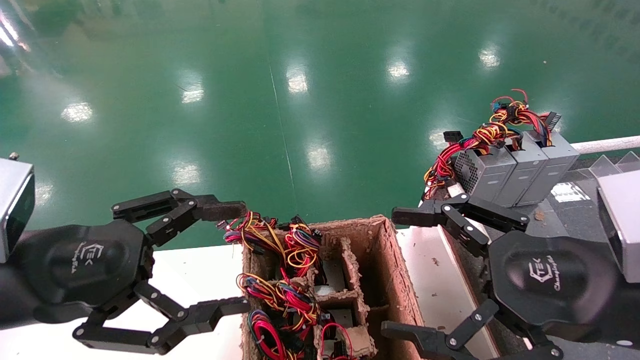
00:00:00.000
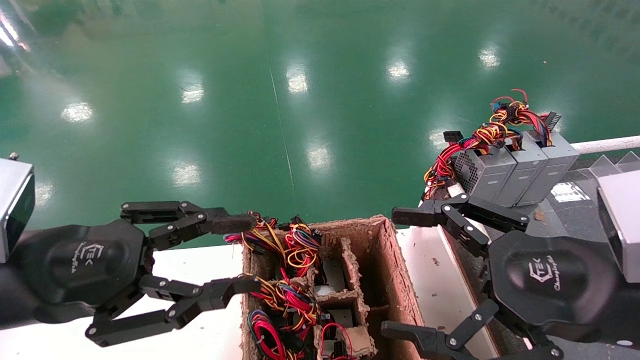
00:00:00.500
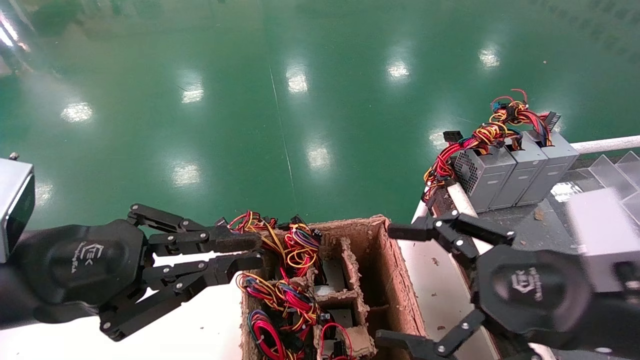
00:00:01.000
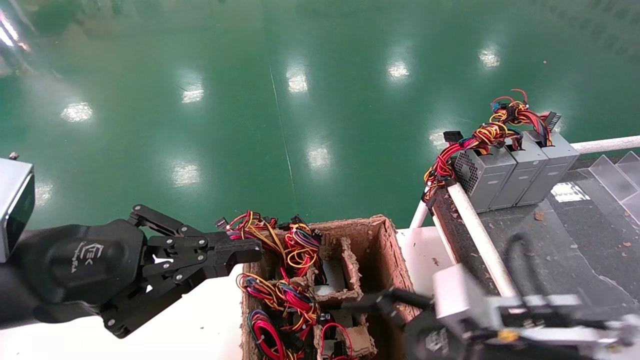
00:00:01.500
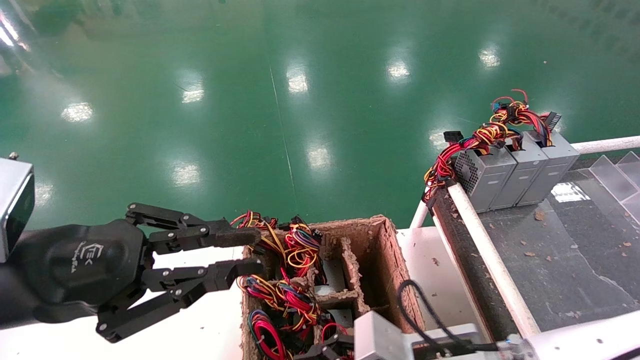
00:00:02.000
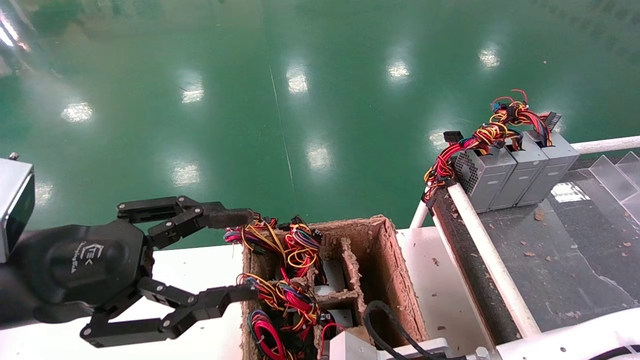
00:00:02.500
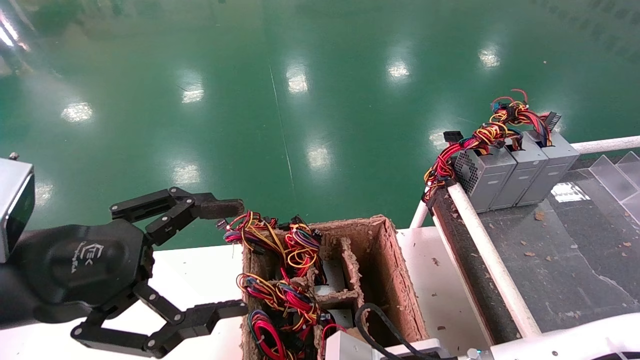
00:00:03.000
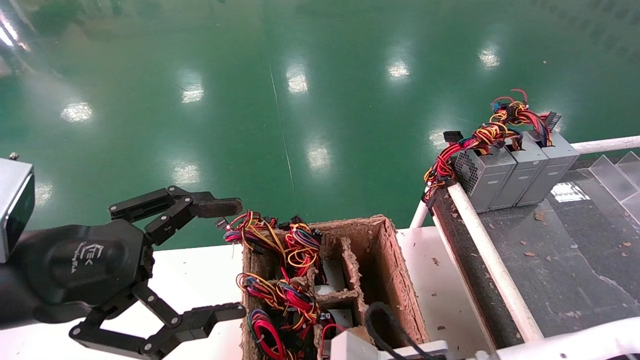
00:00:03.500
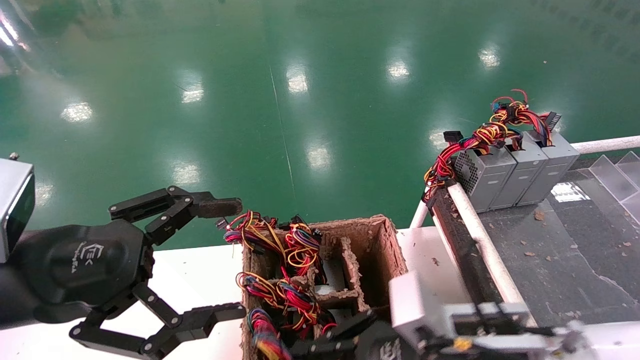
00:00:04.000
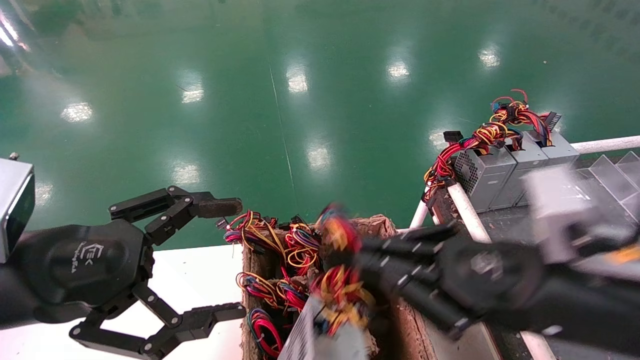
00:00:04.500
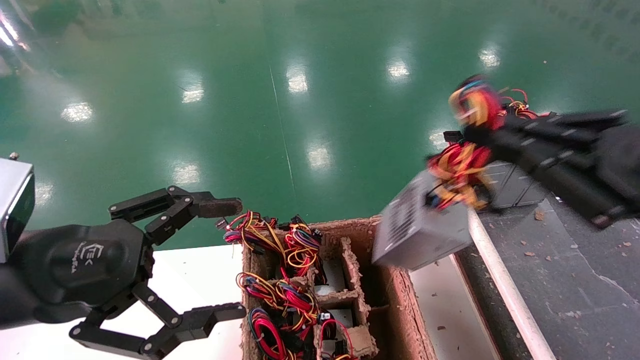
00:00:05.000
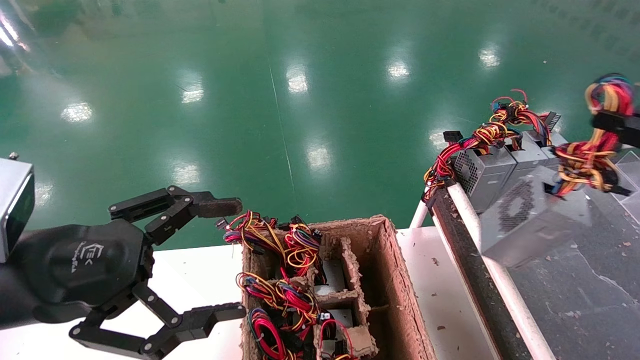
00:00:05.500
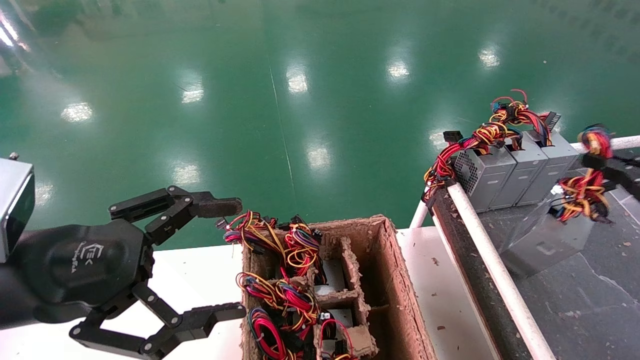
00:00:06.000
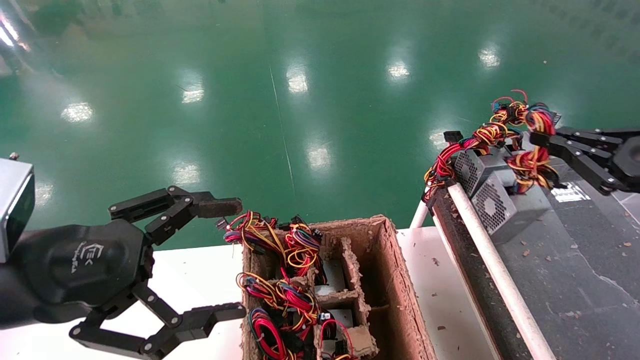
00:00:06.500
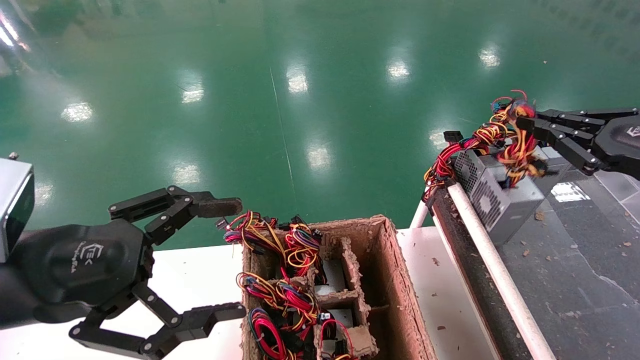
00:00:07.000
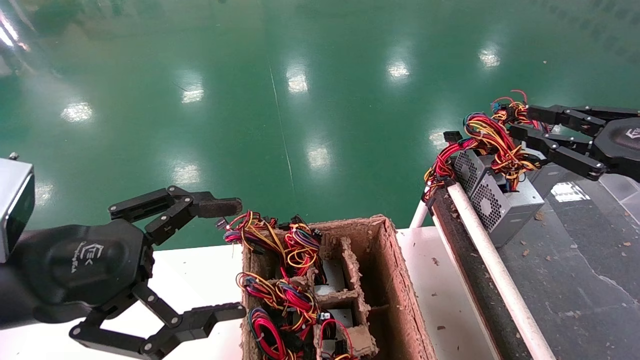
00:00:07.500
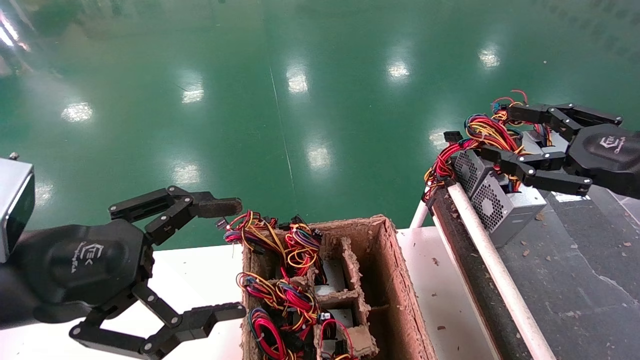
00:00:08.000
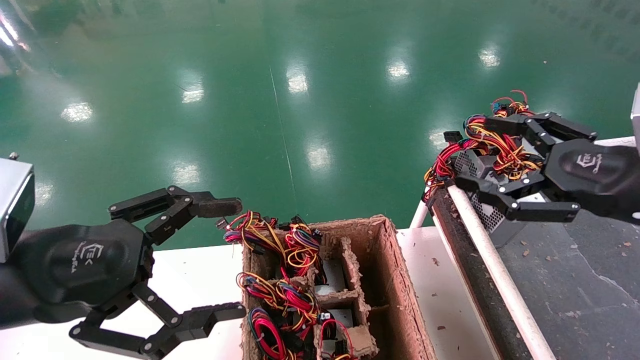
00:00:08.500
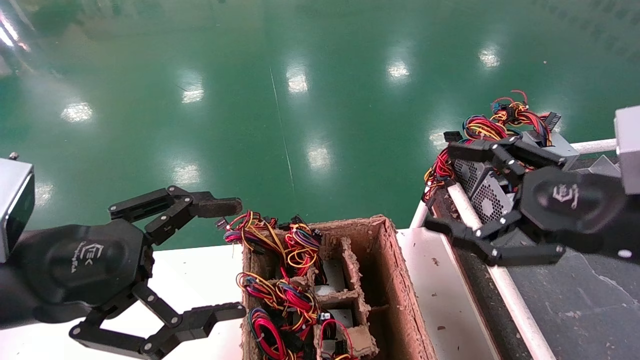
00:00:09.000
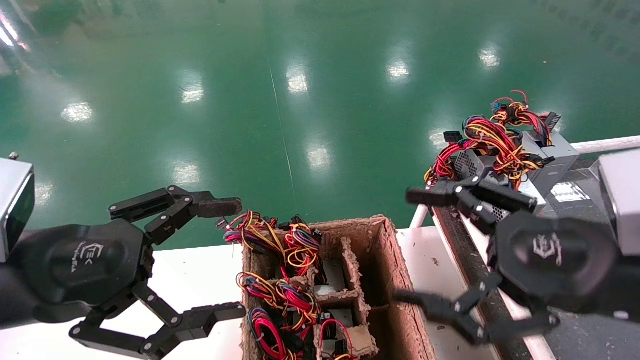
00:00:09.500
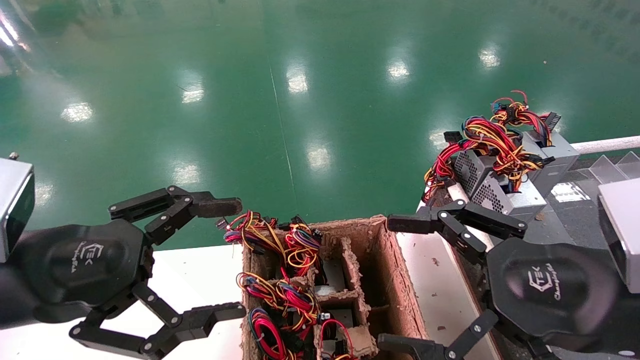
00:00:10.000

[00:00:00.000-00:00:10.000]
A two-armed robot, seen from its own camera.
Step, 00:00:01.500 to 00:00:03.000: Grab and lift the power supply from the large box.
Step, 00:00:03.500 to 00:00:07.000: Place the power supply on the operating table.
00:00:00.000 to 00:00:02.000: The right gripper heads downward, to the left and forward, covering approximately 20 cm, while the left gripper closes up.
00:00:02.000 to 00:00:04.000: The left gripper opens its fingers. Meanwhile the right gripper shifts by roughly 5 cm, and closes its fingers.
00:00:04.000 to 00:00:06.000: The right gripper is displaced to the right by about 30 cm.
00:00:06.000 to 00:00:08.000: The right gripper is displaced to the left and forward by approximately 10 cm, and opens.
00:00:08.000 to 00:00:10.000: The right gripper goes approximately 15 cm to the left and backward, and opens.

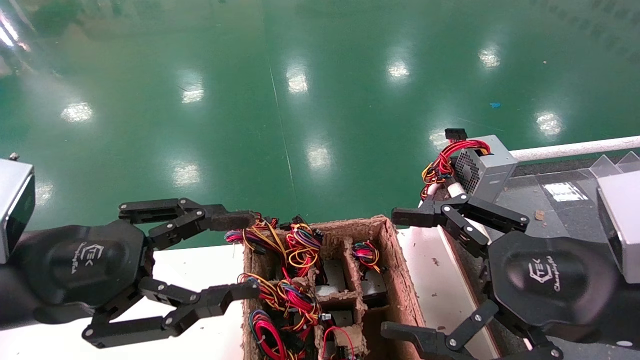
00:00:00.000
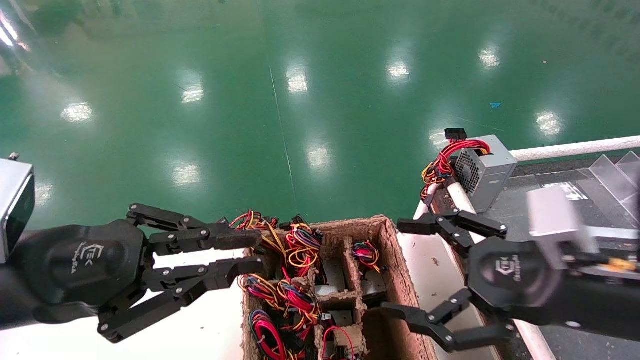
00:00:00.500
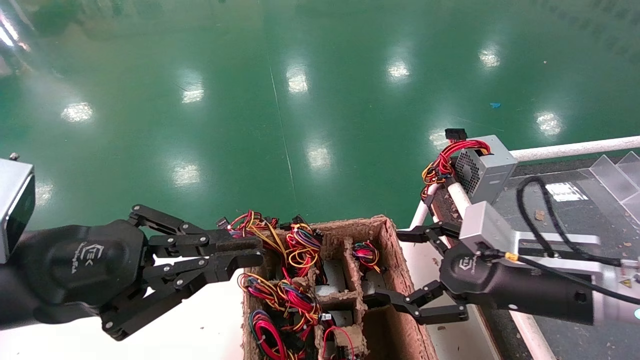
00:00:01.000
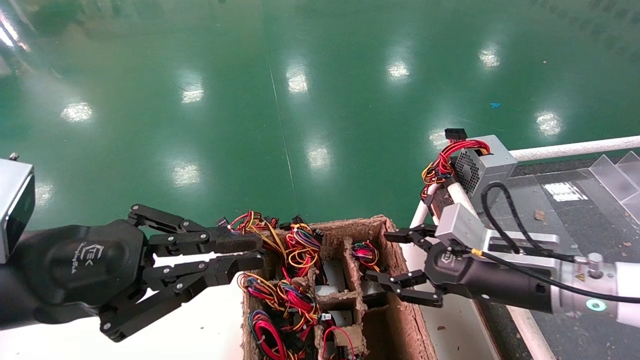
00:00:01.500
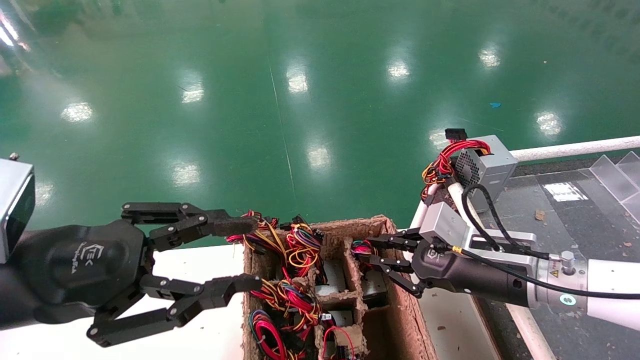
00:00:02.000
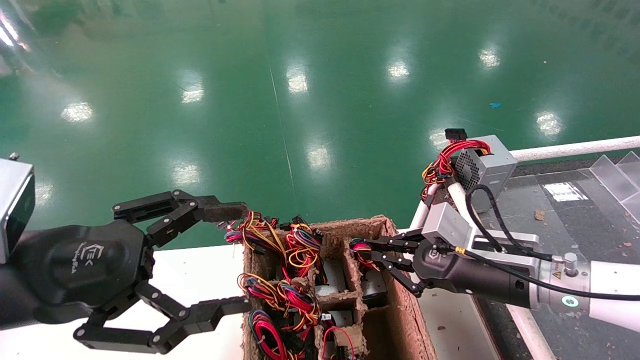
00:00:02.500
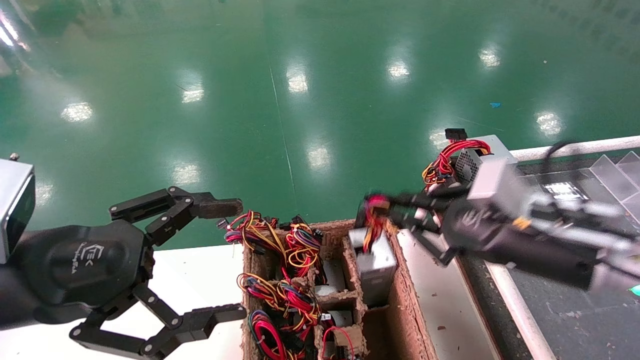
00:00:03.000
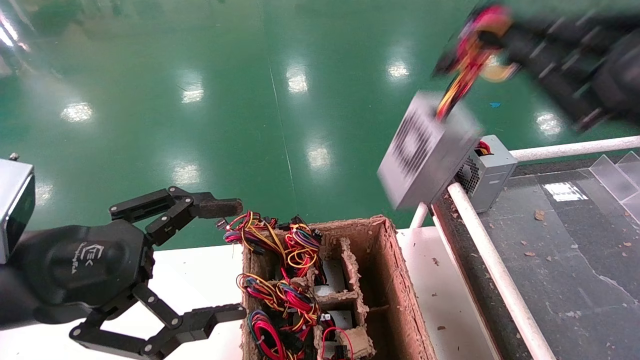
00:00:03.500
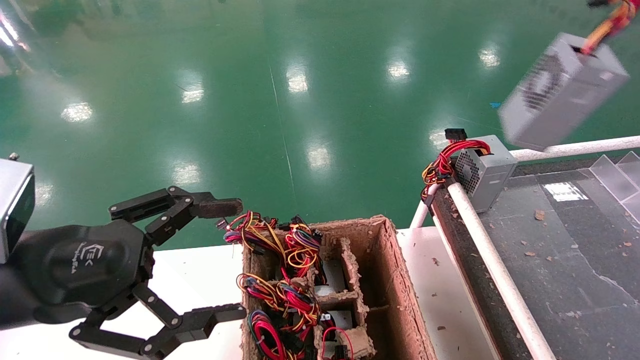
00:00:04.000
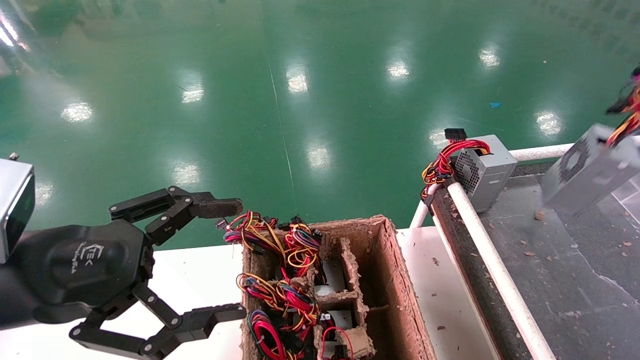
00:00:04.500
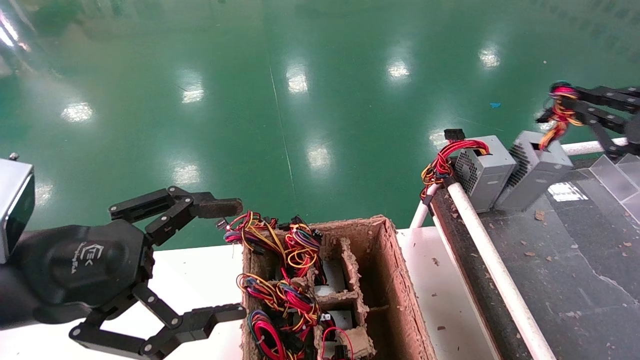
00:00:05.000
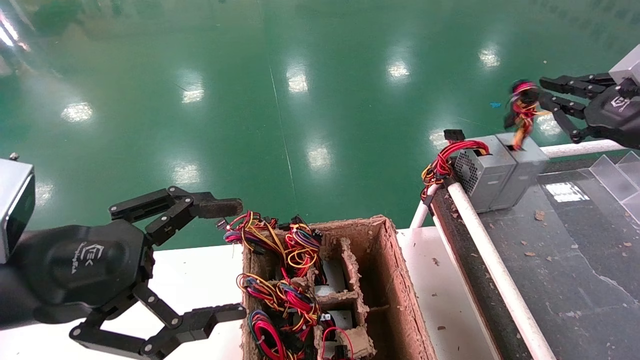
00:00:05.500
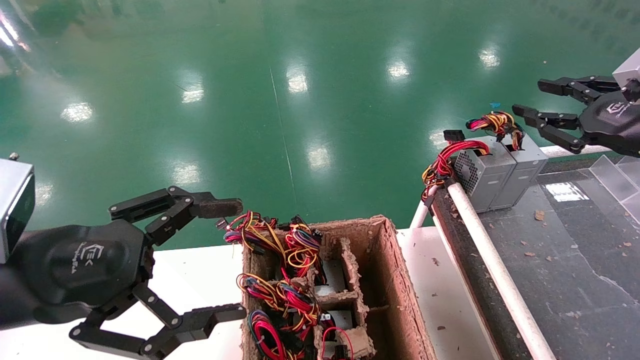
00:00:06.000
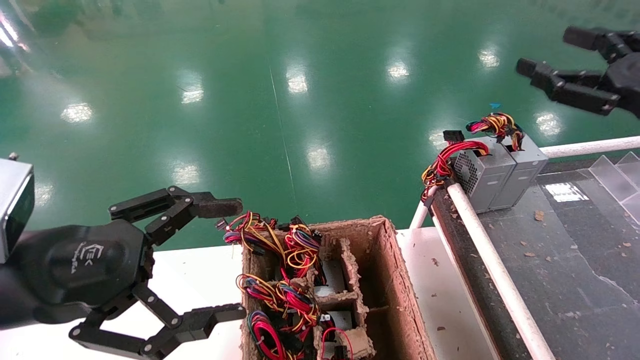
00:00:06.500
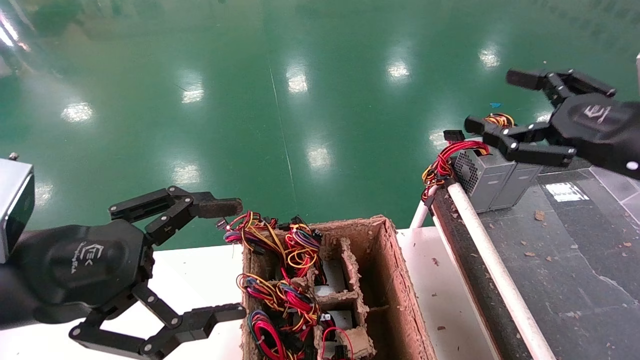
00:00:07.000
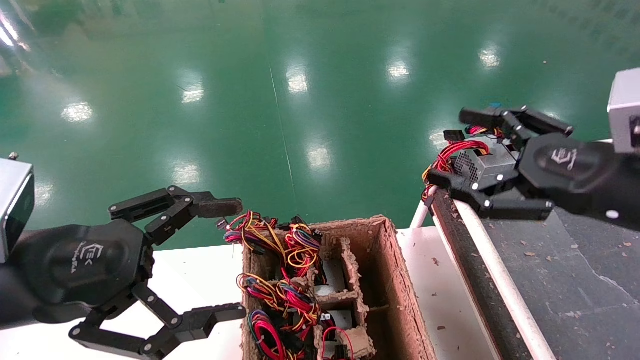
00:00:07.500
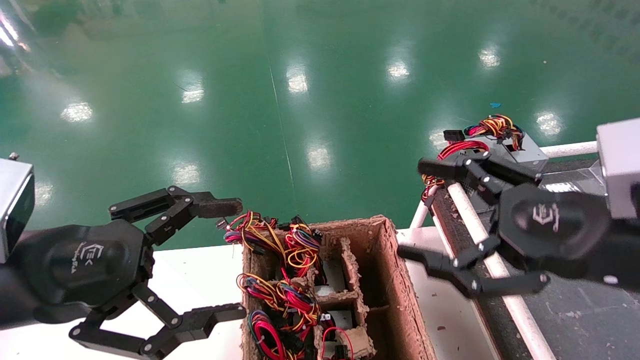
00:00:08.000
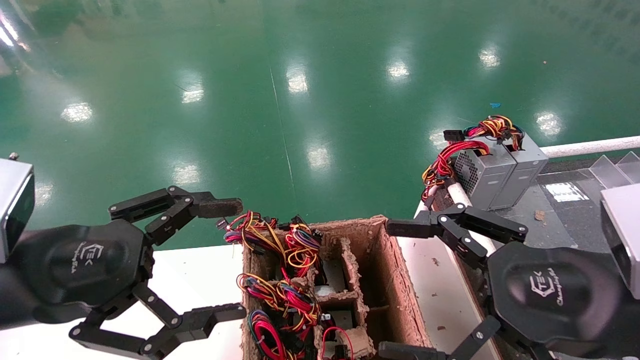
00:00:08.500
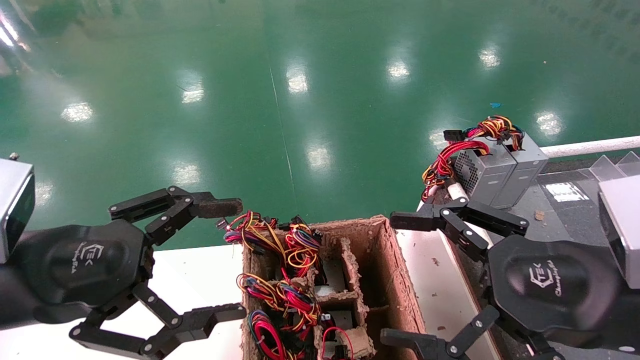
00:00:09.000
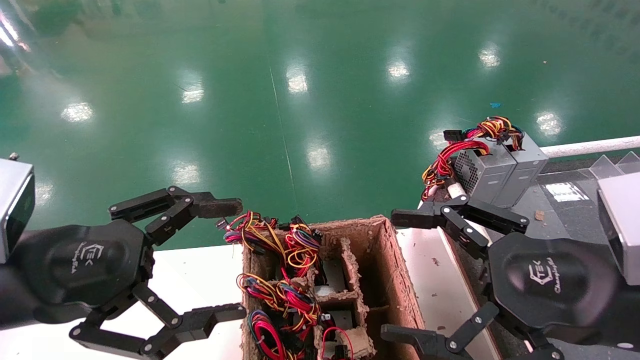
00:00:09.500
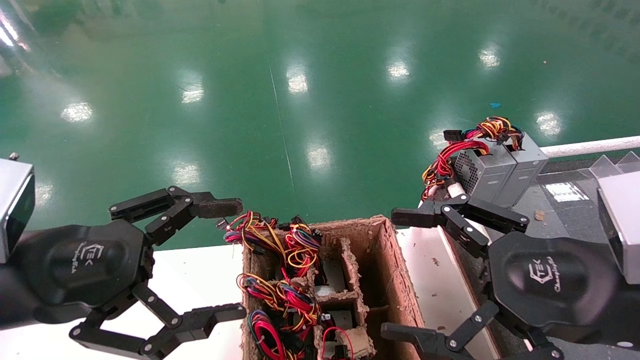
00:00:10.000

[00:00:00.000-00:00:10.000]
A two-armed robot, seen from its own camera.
Step, 00:00:01.000 to 00:00:02.000: Grab and lift the power supply from the large box.
Step, 00:00:02.500 to 00:00:05.500: Place the power supply on the operating table.
00:00:00.000 to 00:00:02.000: The right gripper is displaced forward and downward by approximately 15 cm, and closes its fingers.
00:00:02.000 to 00:00:04.000: The right gripper heads upward, to the right and backward, covering approximately 30 cm; the left gripper opens up.
00:00:04.000 to 00:00:06.000: The right gripper heads forward and downward, covering approximately 10 cm.
00:00:06.000 to 00:00:08.000: The right gripper heads to the left, backward and downward, covering about 15 cm, and opens up.
00:00:08.000 to 00:00:10.000: There are only small adjustments of the grippers.
